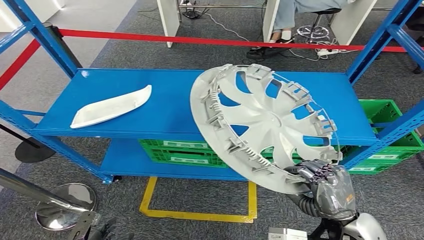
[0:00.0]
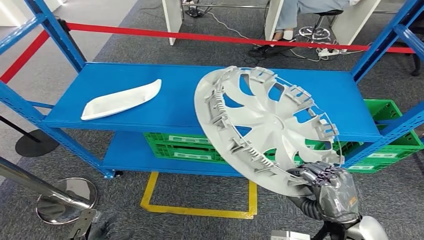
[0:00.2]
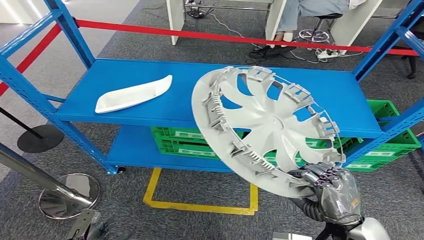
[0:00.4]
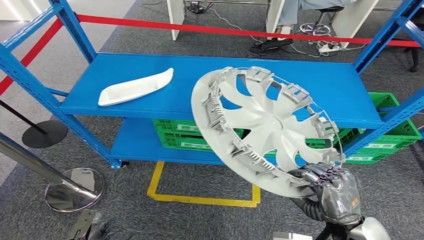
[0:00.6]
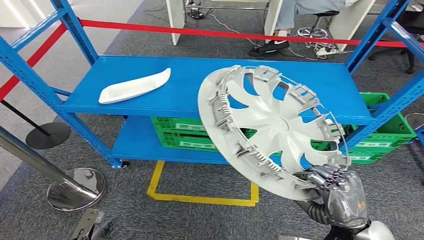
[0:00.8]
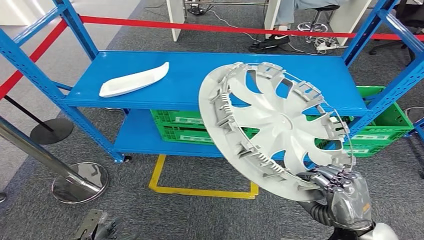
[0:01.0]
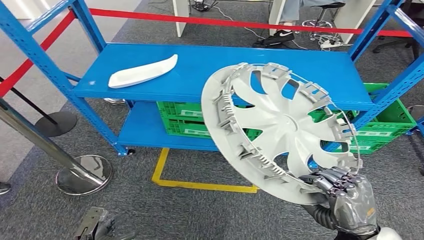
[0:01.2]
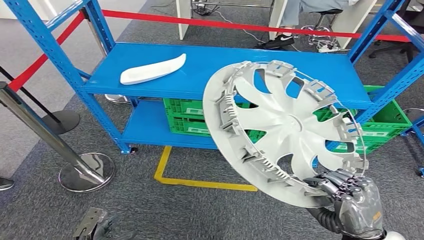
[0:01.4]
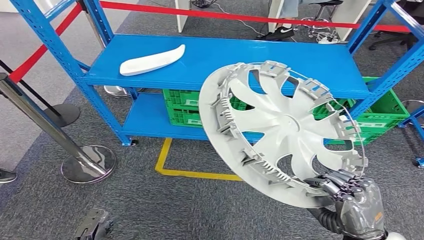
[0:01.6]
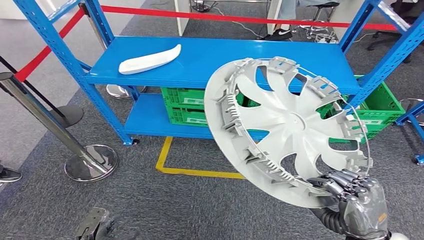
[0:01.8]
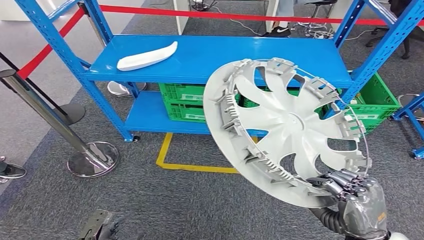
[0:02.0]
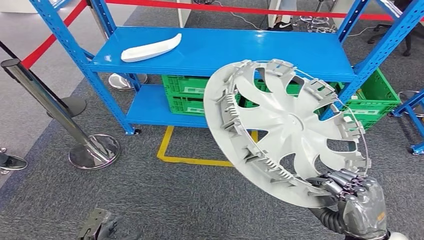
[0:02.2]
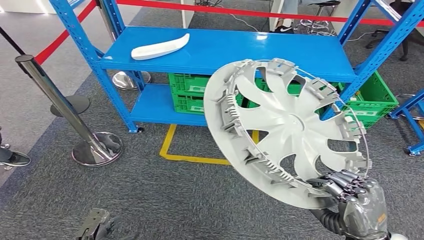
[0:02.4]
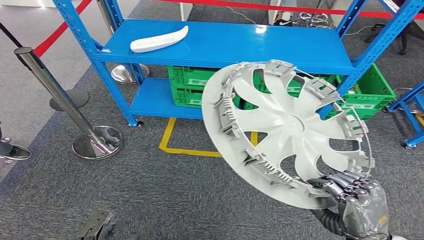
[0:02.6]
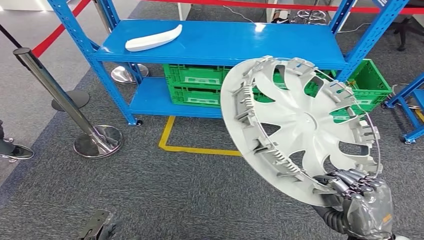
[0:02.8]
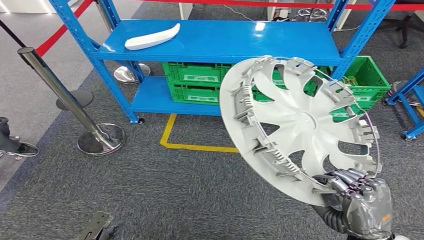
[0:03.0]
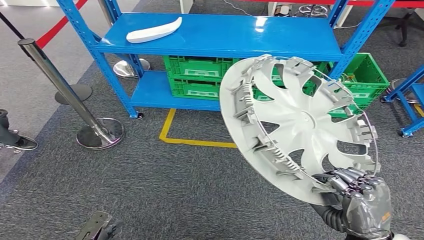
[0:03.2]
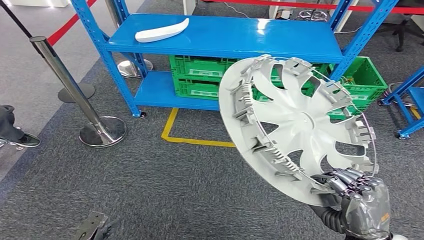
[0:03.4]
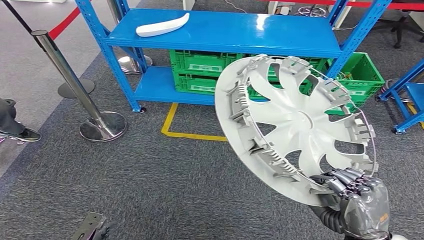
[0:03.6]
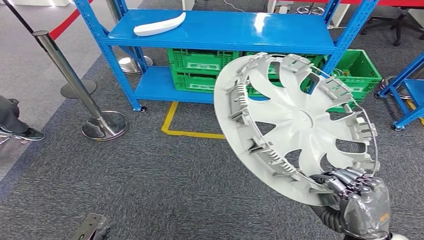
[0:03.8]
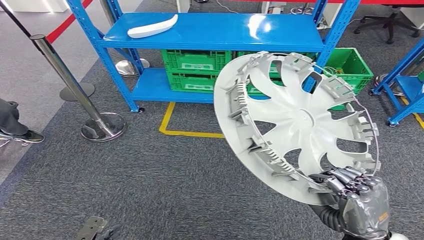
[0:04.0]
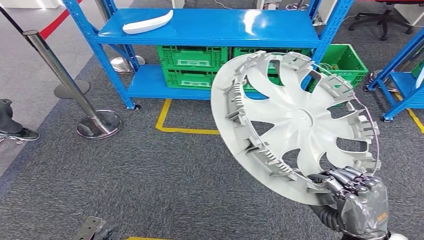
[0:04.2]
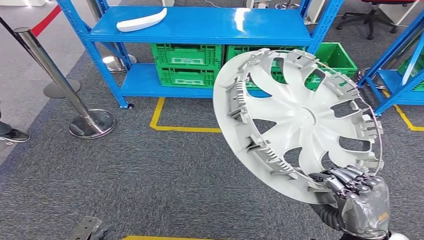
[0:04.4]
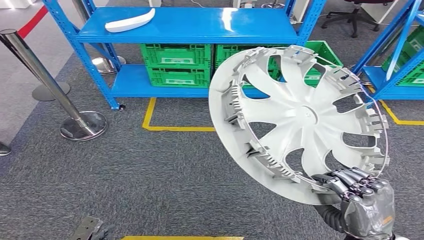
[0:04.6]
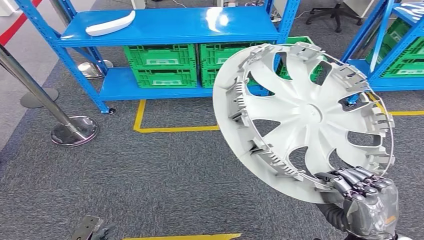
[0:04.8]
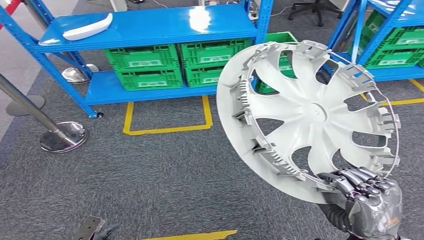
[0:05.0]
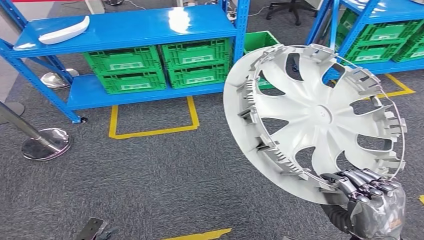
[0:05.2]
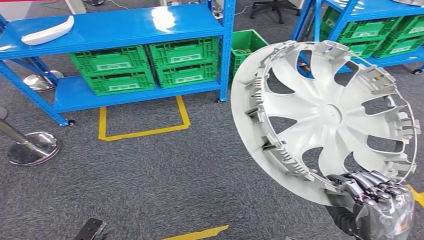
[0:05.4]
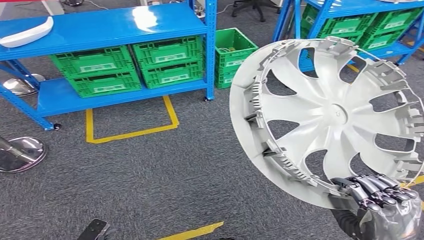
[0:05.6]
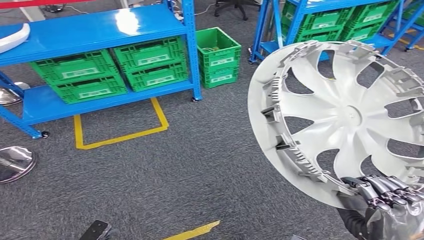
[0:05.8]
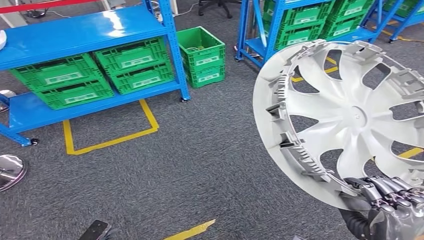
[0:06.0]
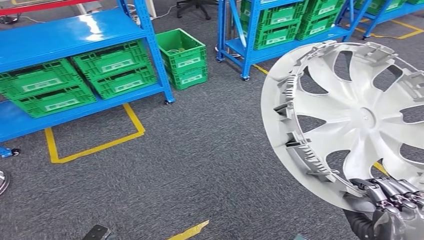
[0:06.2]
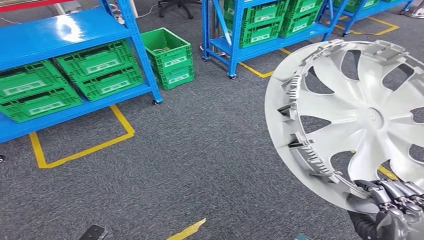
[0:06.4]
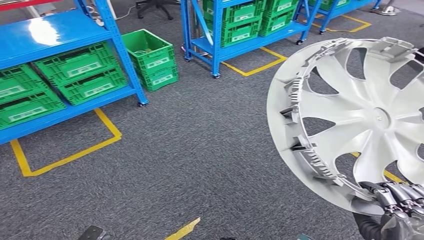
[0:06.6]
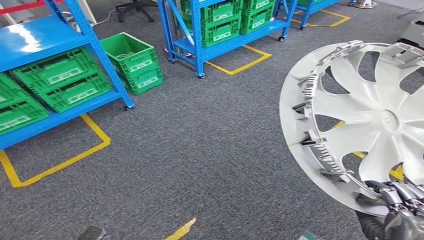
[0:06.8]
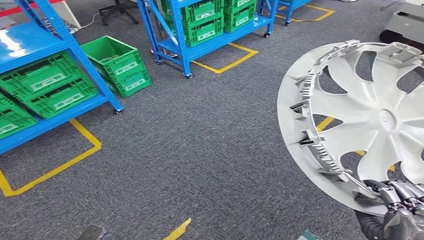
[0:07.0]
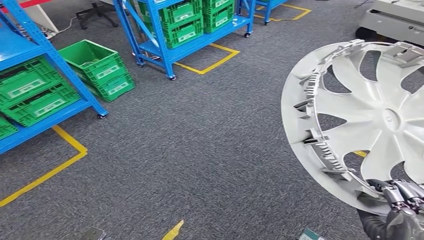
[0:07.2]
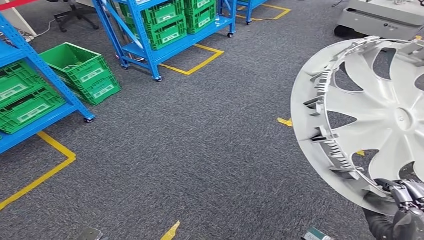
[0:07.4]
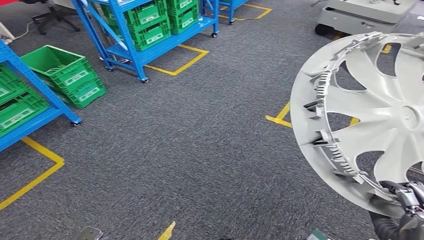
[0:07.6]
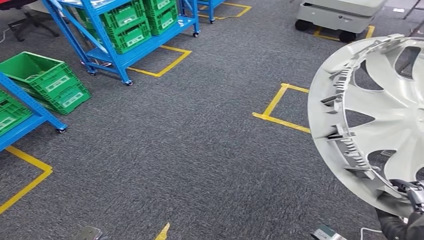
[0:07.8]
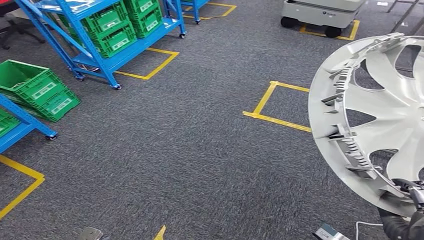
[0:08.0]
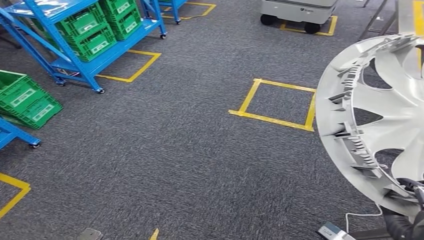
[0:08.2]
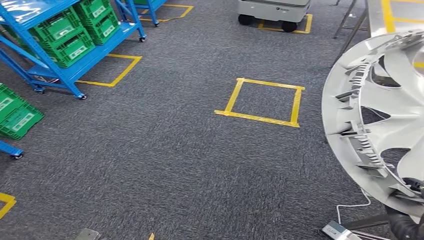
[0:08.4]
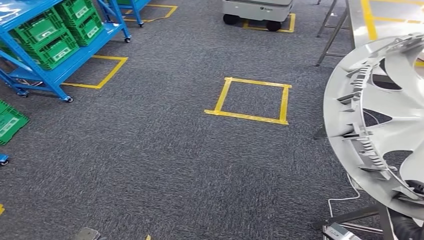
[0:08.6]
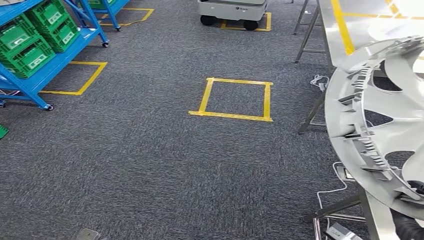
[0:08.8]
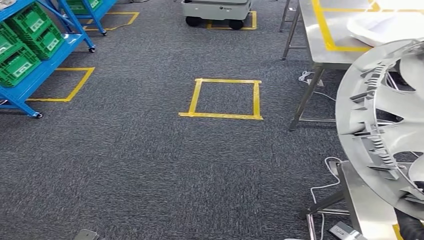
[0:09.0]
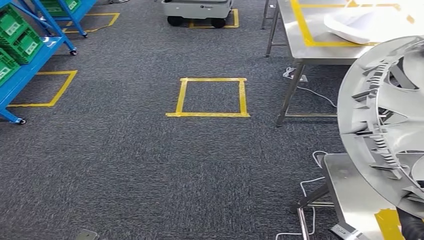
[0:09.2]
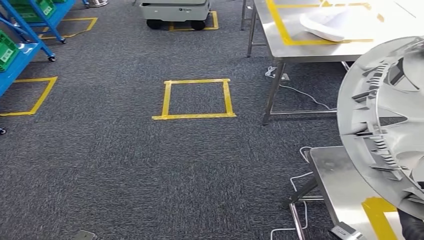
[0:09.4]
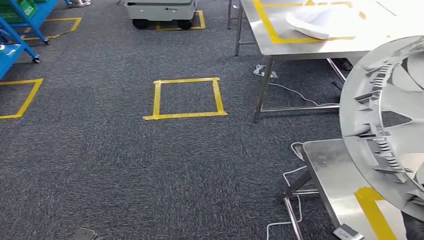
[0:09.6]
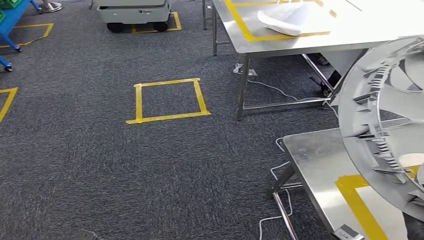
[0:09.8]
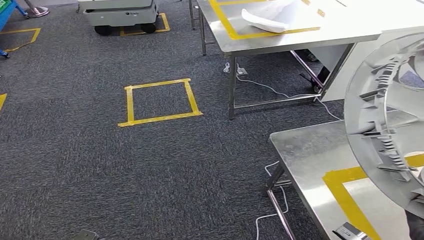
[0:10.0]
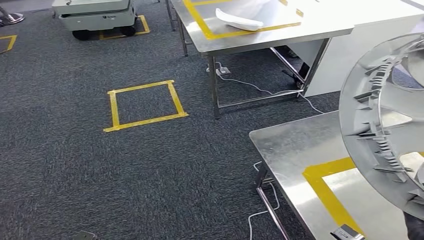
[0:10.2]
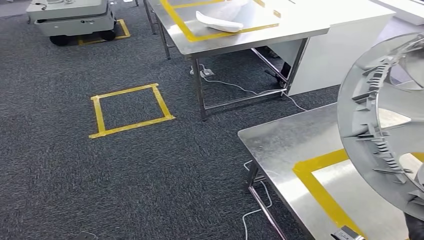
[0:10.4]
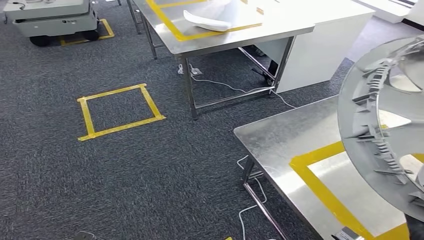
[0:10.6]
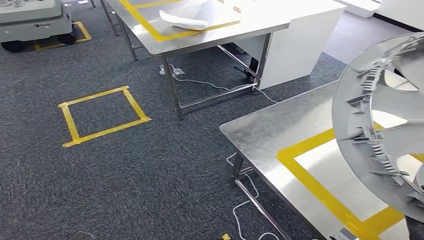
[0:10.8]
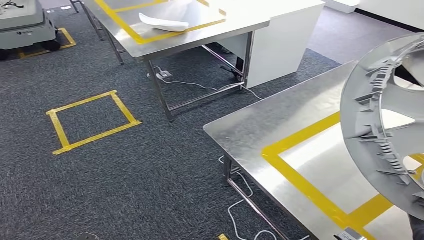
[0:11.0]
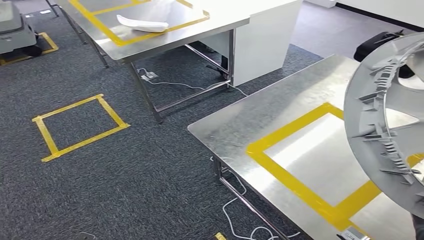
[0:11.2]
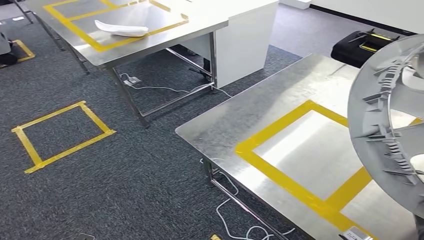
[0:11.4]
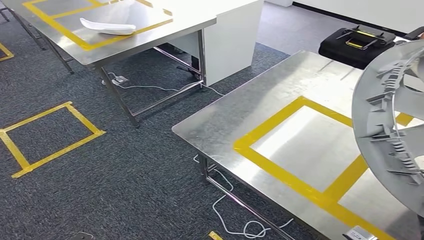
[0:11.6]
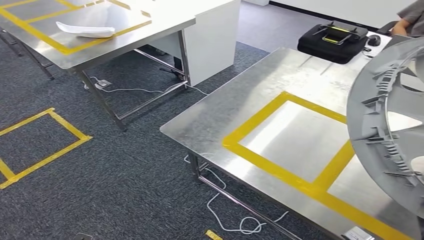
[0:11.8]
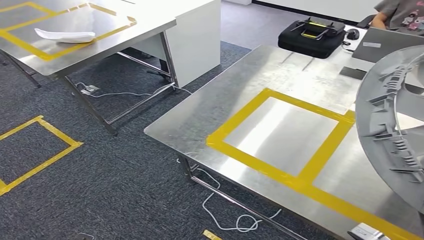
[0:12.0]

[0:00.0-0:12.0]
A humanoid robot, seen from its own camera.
Step, 0:00.0 to 0:06.2: Take small components from the rack.

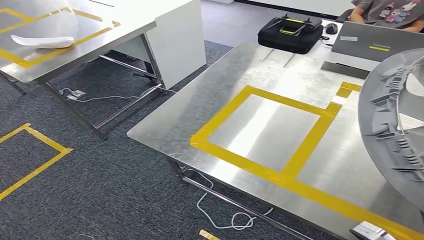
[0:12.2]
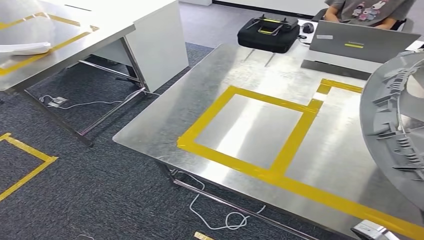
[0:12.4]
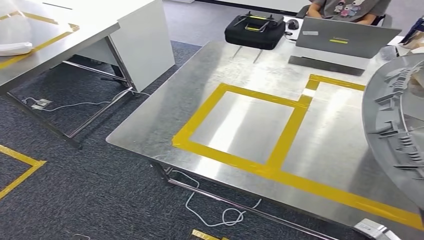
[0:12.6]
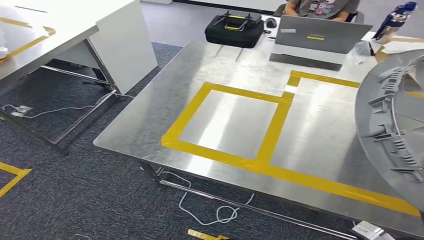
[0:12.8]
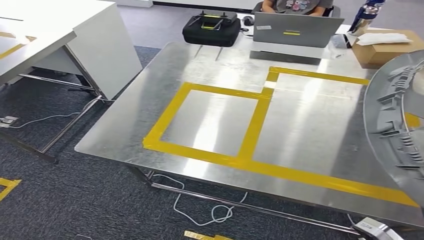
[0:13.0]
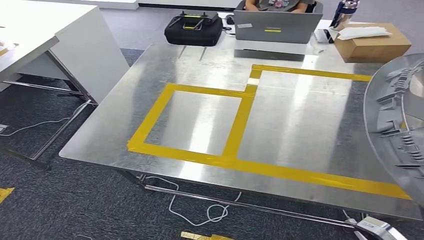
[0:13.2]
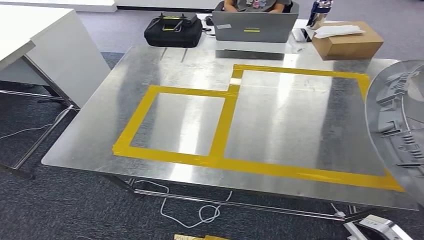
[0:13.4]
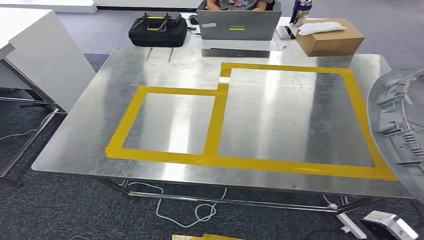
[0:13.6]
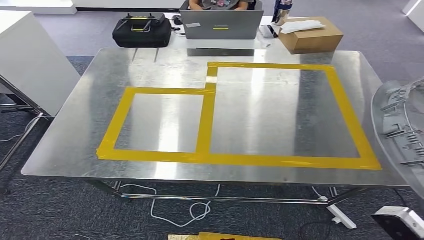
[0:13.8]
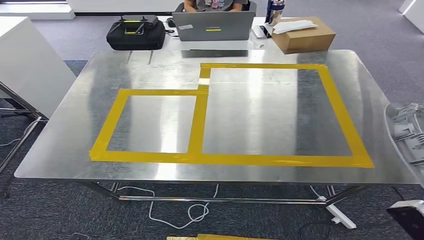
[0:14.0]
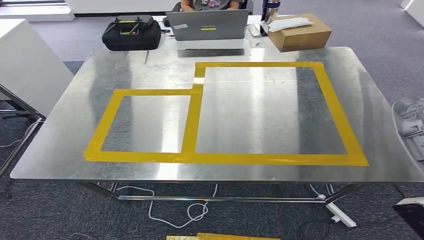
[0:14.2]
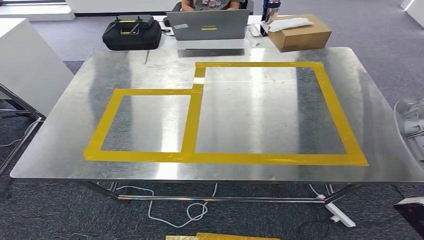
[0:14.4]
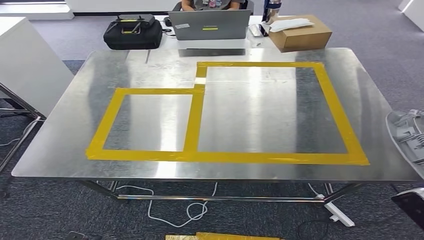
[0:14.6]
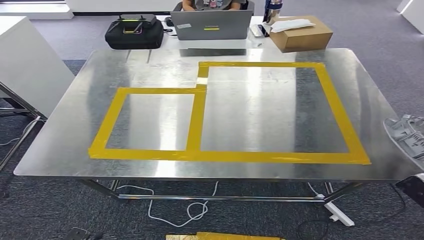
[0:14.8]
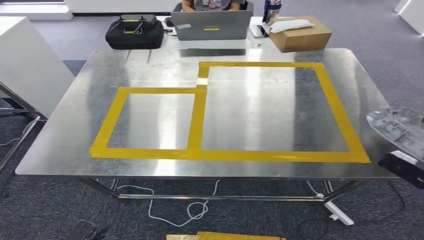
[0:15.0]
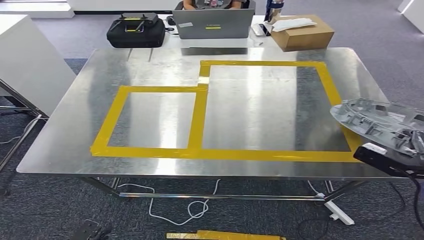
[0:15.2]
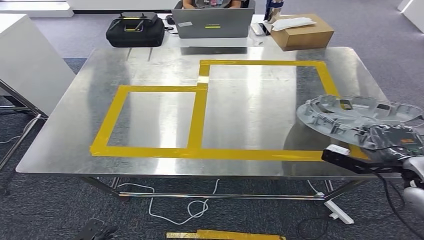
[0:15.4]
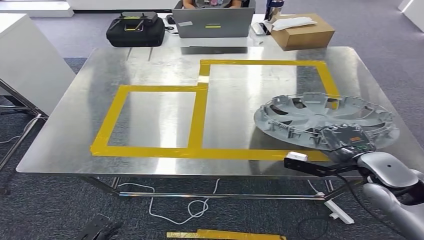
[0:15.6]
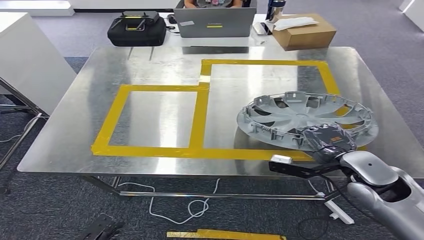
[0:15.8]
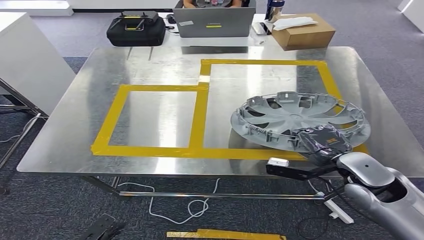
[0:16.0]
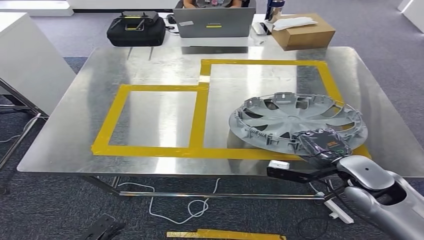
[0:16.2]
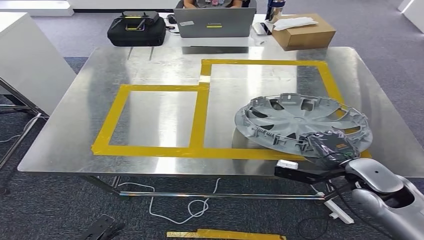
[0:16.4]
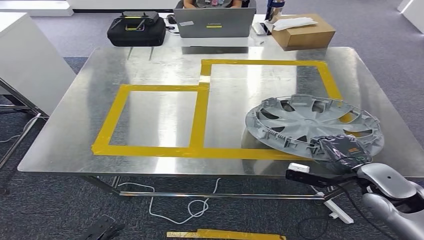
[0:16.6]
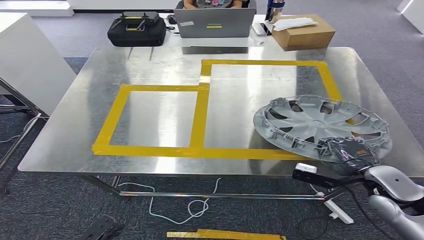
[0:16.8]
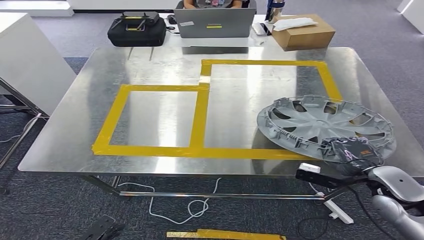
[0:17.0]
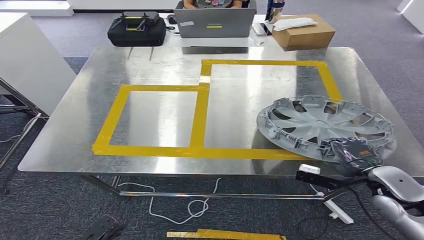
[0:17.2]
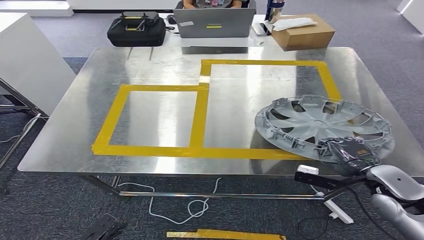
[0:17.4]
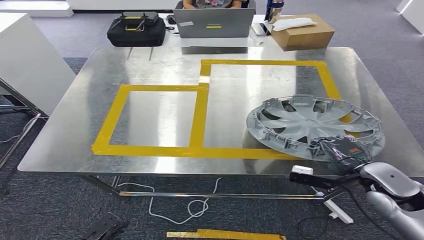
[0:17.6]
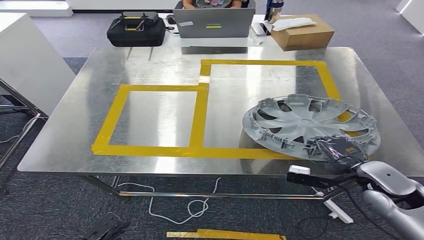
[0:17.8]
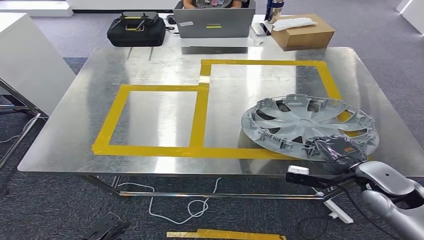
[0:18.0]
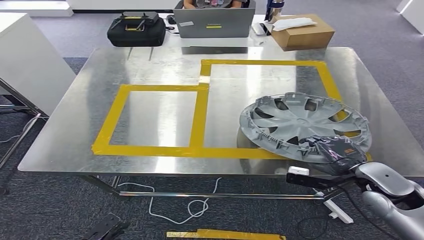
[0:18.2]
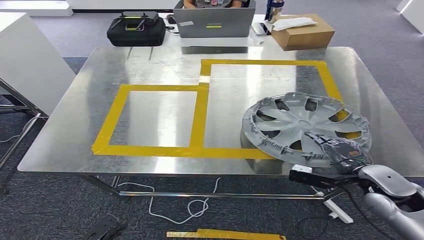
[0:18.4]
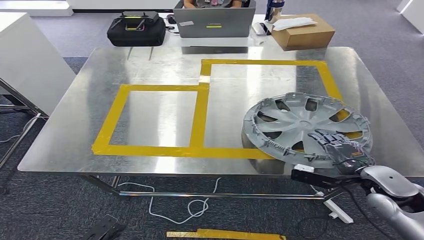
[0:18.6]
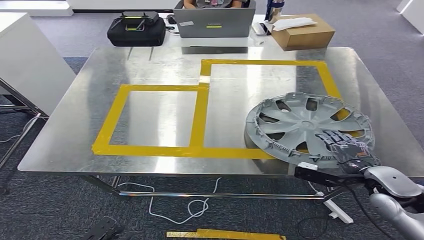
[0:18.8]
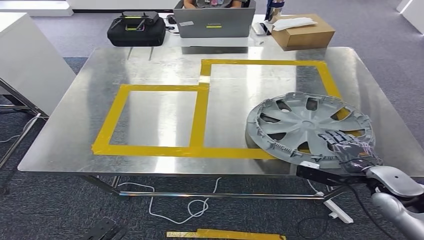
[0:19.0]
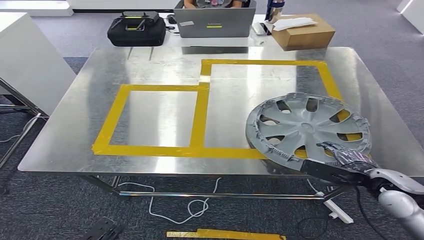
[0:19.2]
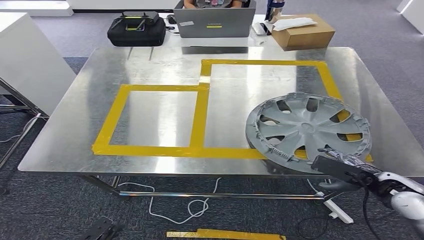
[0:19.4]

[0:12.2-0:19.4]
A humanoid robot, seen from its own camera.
Step, 0:12.2 to 0:18.4: Move the small parts to the workbench.
0:16.6 to 0:18.0: The hands stay close to where they were, moving slightly.
